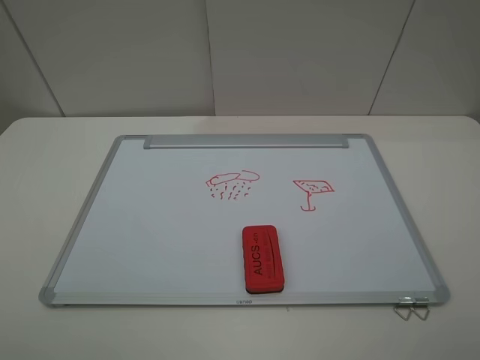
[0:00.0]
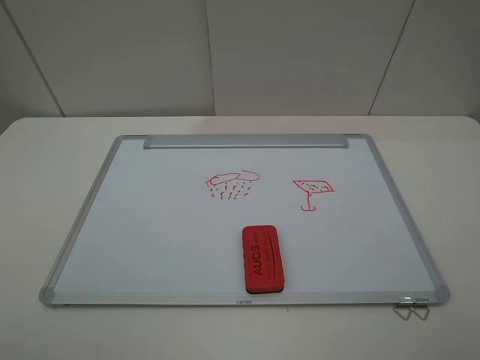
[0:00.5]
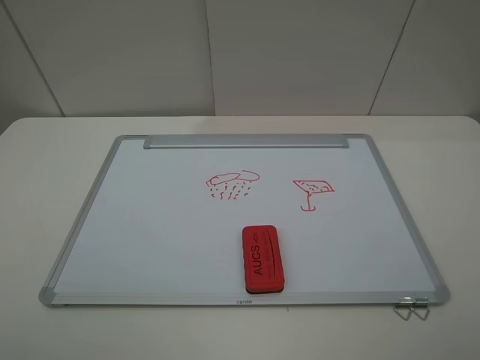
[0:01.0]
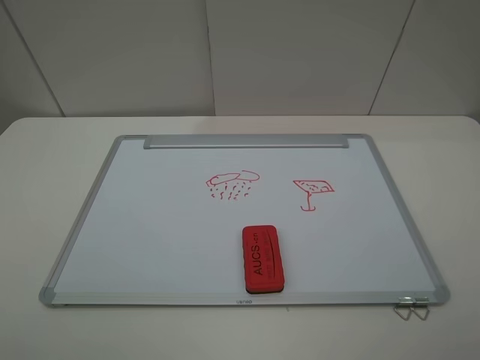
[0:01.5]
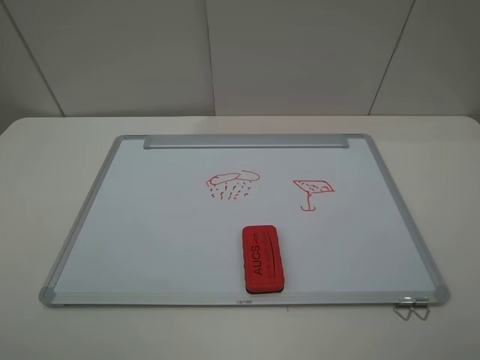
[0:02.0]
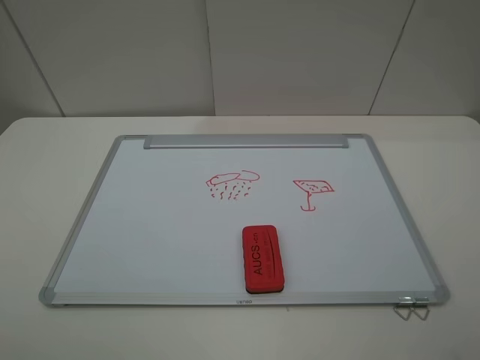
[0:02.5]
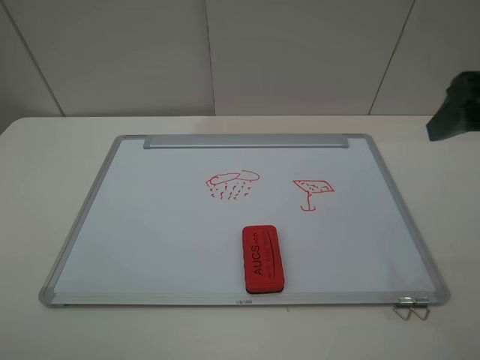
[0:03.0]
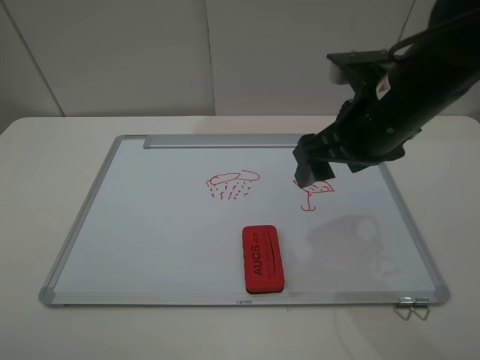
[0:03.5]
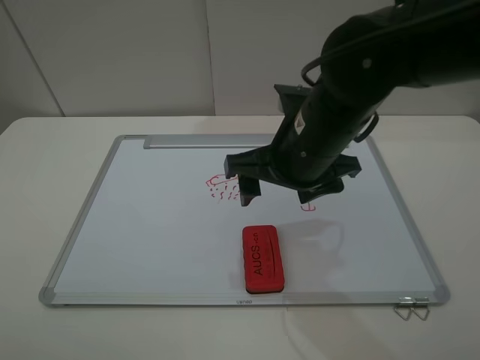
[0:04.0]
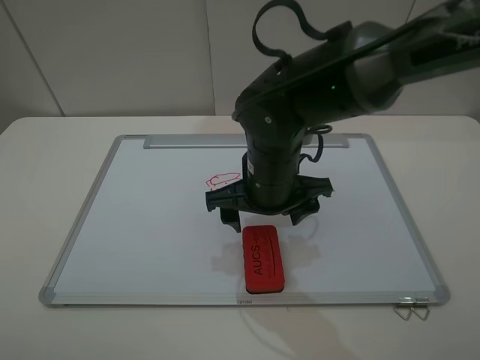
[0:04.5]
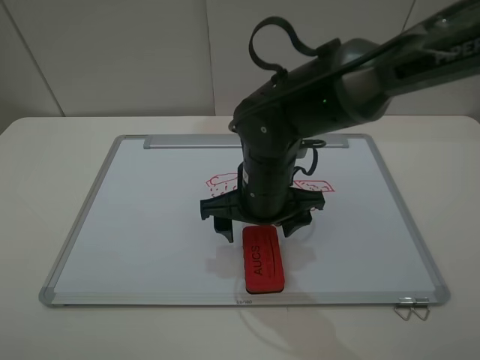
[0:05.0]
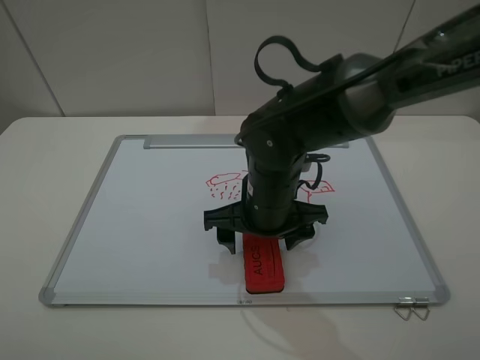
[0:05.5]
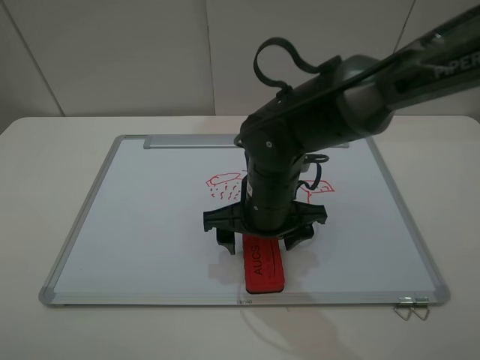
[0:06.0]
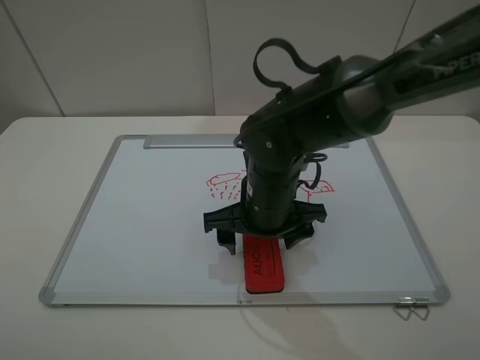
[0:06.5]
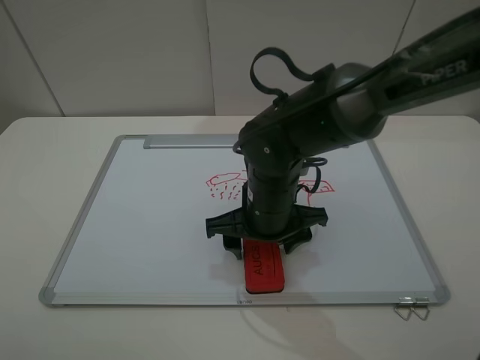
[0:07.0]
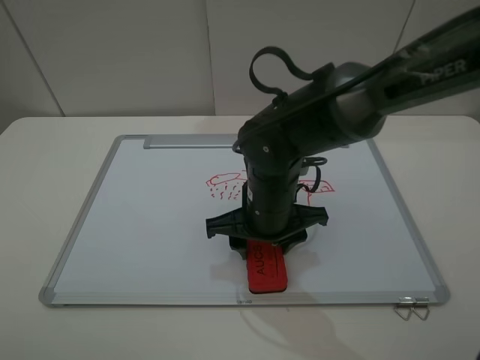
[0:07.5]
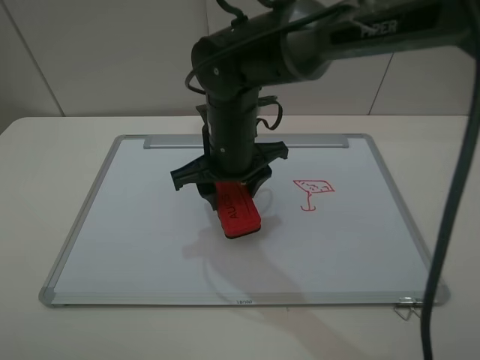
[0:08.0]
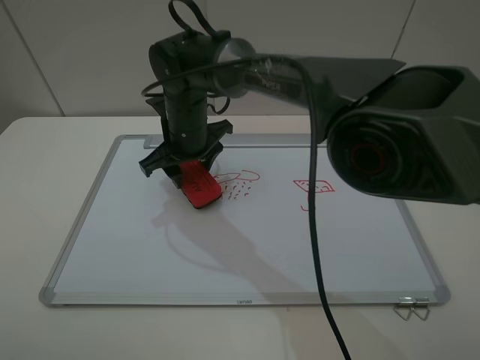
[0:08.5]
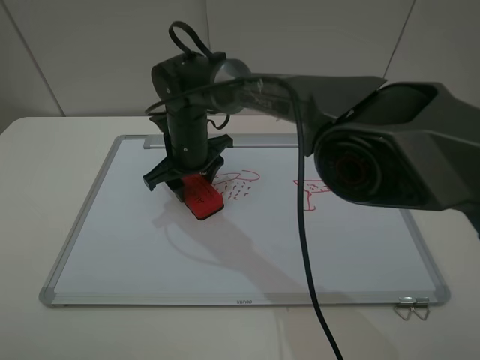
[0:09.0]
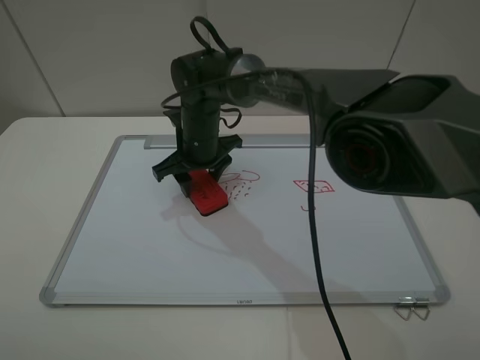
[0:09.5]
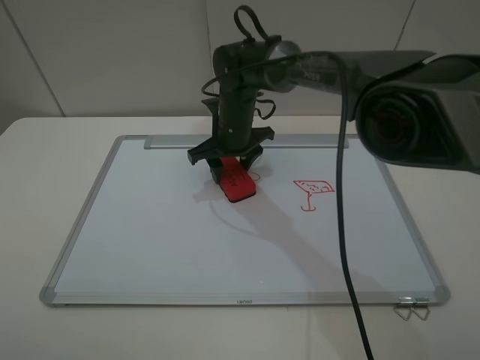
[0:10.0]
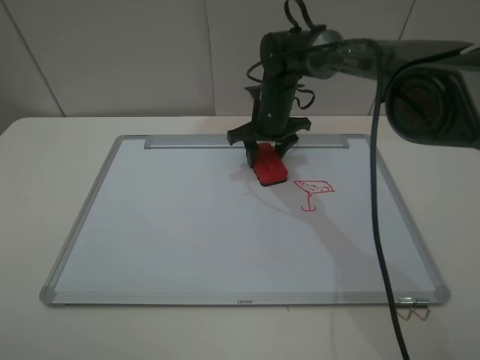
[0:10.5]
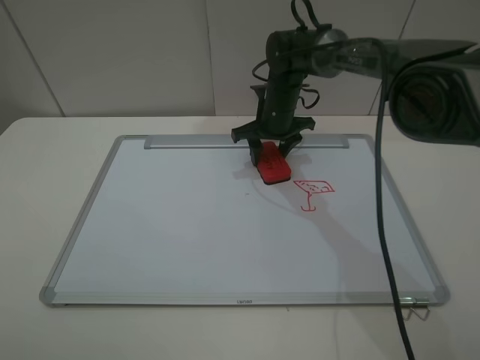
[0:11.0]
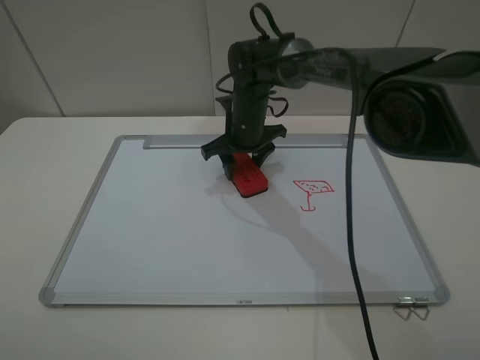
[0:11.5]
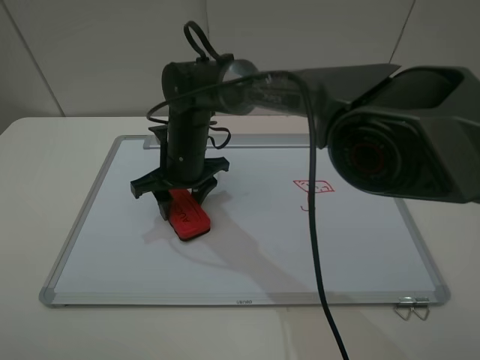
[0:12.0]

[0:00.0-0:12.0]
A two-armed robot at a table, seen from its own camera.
Step, 0:00.0 to 0:07.0: Grasp the eraser with the right gripper.
0:00.0 to 0:02.0: The two grippers keep their place.
0:02.0 to 0:04.0: The right gripper moves forward and to the left, about 35 cm.
0:04.0 to 0:06.0: The right gripper heads downward, covering some 10 cm.
0:06.0 to 0:08.0: The right gripper moves forward and to the left, about 10 cm, and closes up.
0:08.0 to 0:10.0: The right gripper moves forward and downward, roughly 10 cm.
0:10.0 to 0:12.0: The right gripper heads to the left and backward, covering roughly 10 cm.

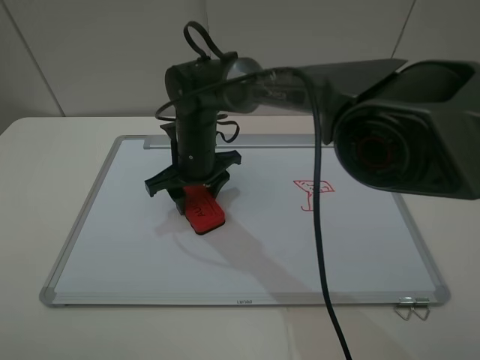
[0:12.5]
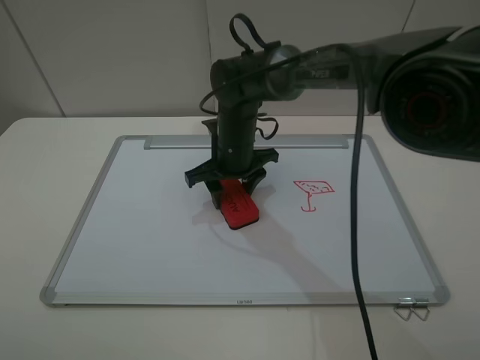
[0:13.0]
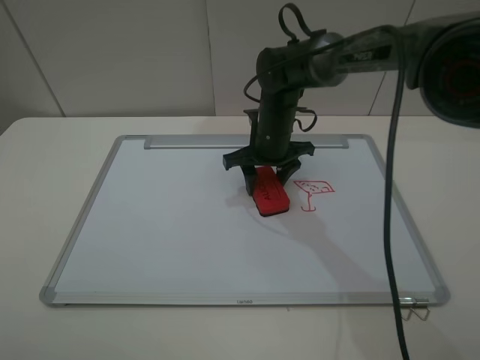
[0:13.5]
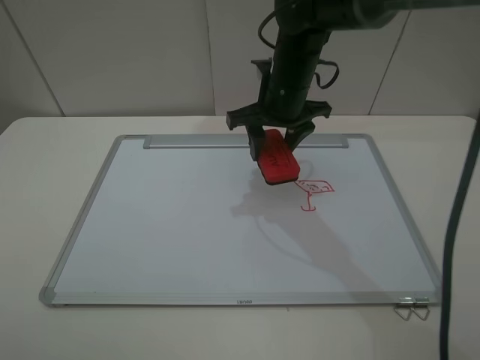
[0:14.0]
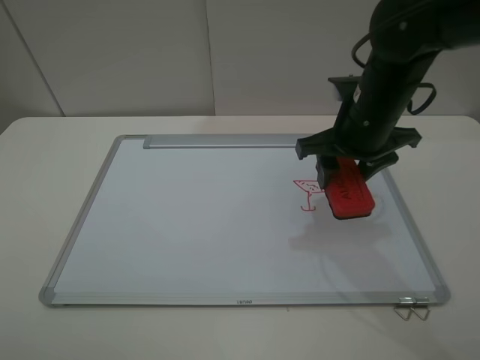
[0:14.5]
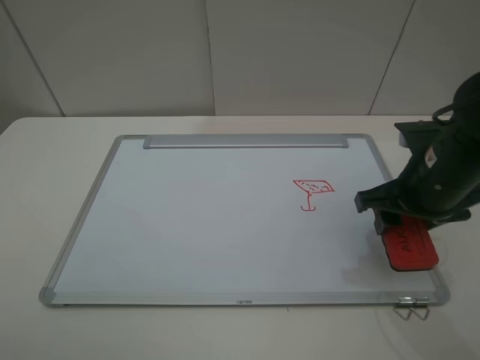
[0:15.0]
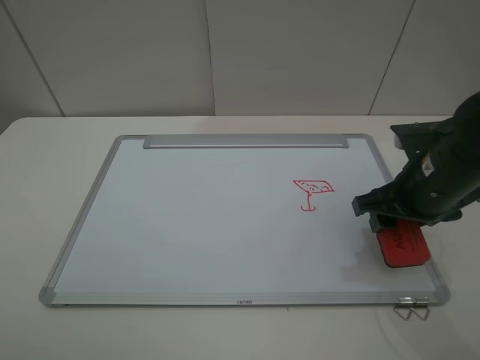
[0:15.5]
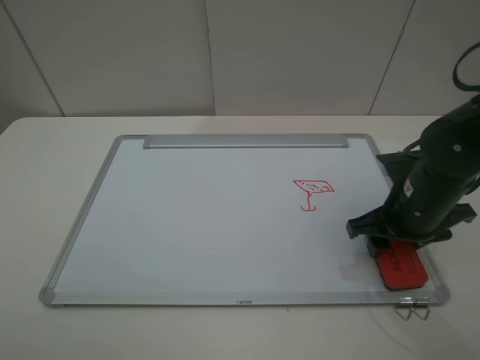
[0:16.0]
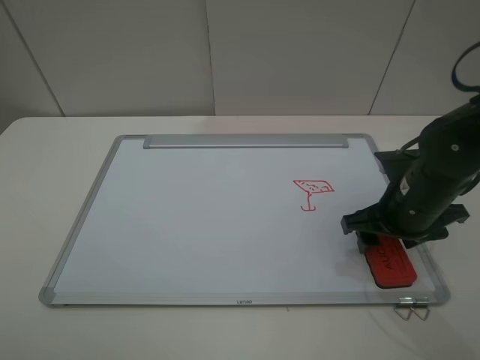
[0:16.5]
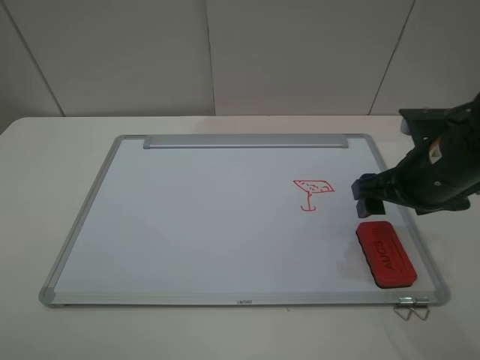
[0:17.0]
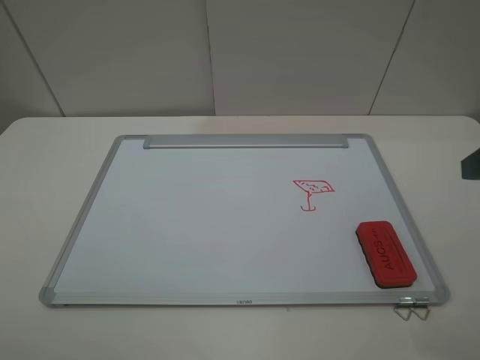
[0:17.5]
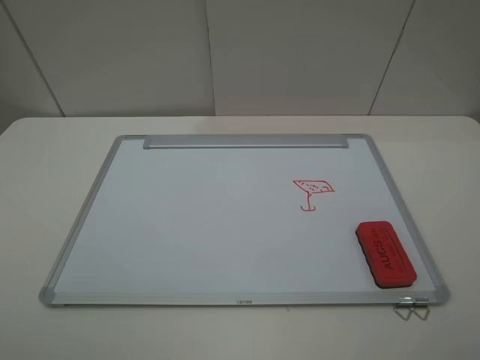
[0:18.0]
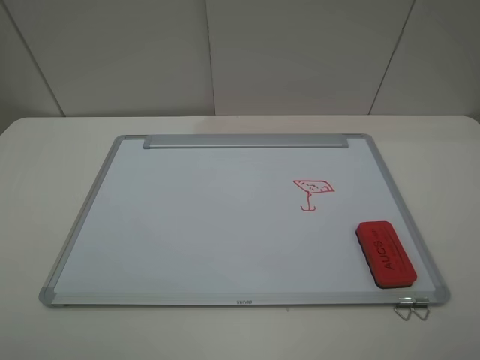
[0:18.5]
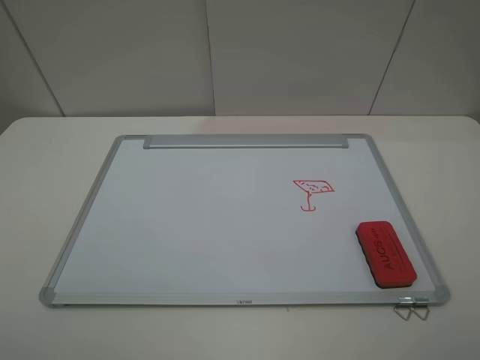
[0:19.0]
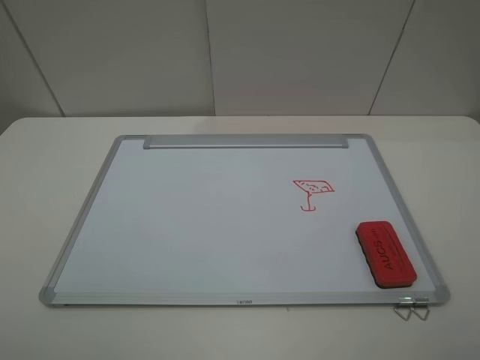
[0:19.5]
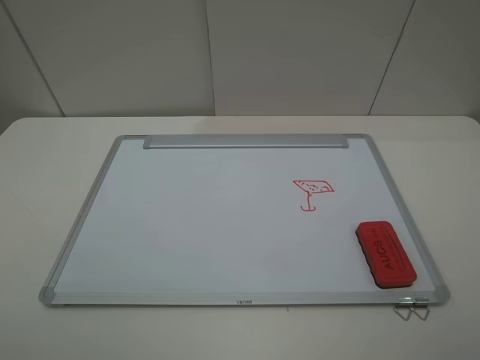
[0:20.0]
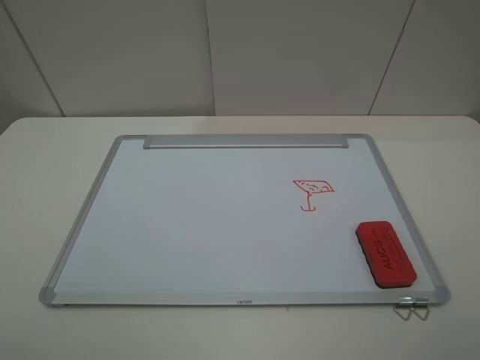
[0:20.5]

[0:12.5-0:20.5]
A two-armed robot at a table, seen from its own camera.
Step, 0:14.0 to 0:16.5: Place the eraser with the right gripper.
0:12.5 to 0:14.5: The right gripper is displaced to the right and upward by roughly 25 cm.
0:14.5 to 0:16.5: The right gripper goes approximately 10 cm downward, backward and to the right, and opens.
0:16.5 to 0:18.5: The right gripper heads backward and upward, covering about 30 cm, and opens up.
0:18.5 to 0:20.5: Both grippers stay about where they are.
